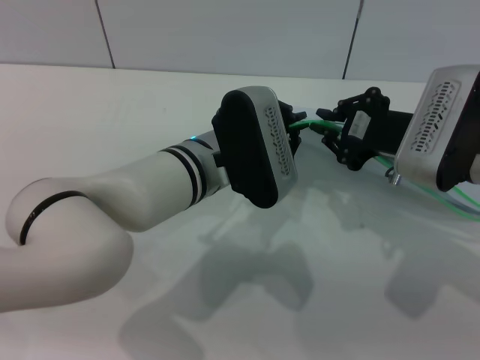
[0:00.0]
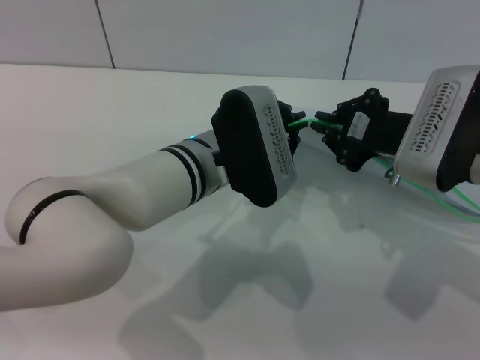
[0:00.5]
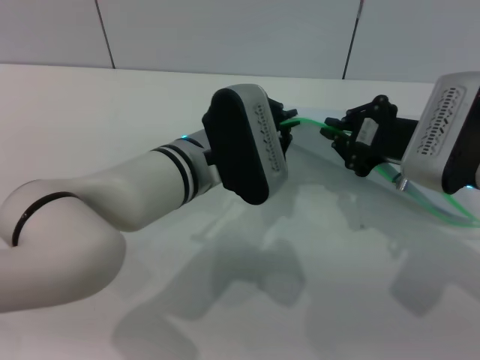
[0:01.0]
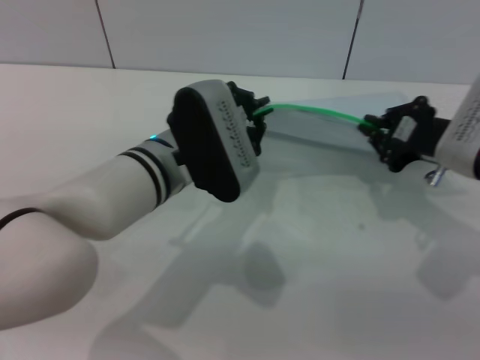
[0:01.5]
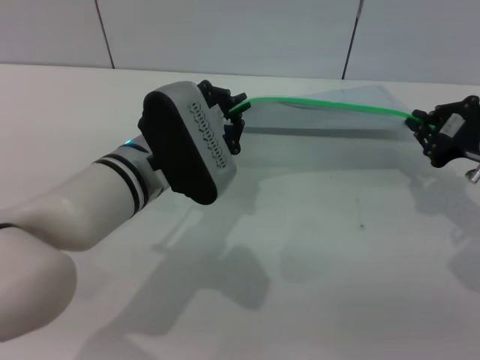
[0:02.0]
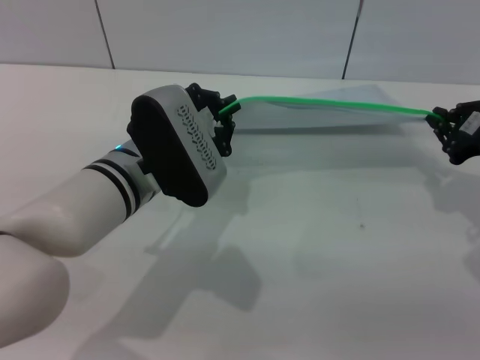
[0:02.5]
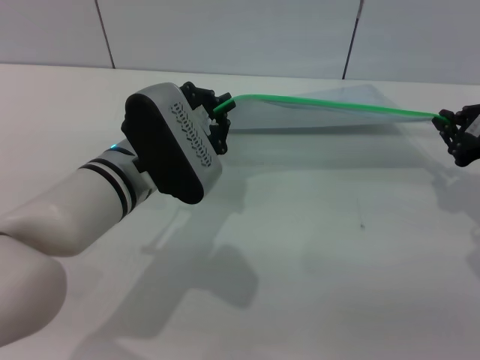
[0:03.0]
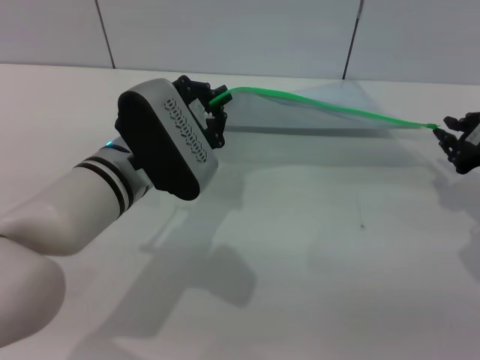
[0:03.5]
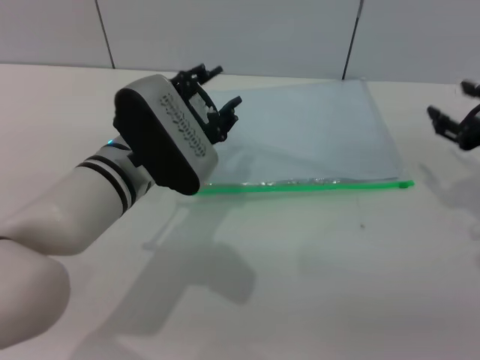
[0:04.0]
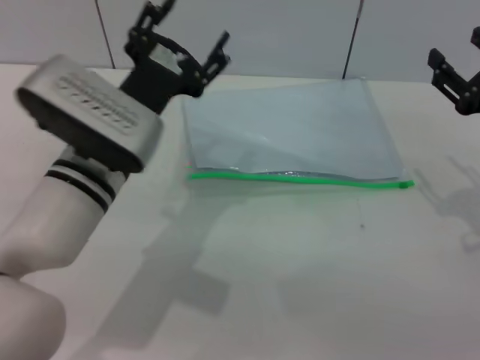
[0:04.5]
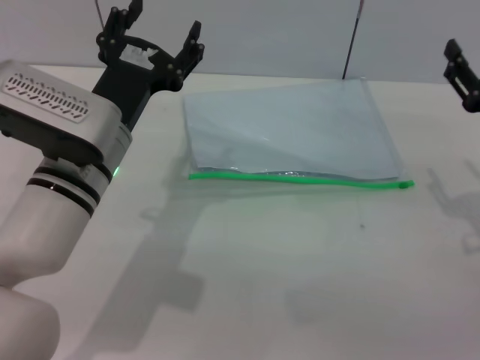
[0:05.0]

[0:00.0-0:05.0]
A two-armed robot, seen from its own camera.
Step, 0:00.0 to 0:03.5: Pulling up the zipper on the transparent plastic bag with the left gripper to close it.
0:00.0 to 0:02.5: The left gripper shifts approximately 5 cm to the left. Meanwhile the right gripper heads to the right, covering roughly 10 cm.
0:02.5 to 0:05.0: The left gripper opens its fingers; the right gripper moves some 5 cm, and opens its fingers.
